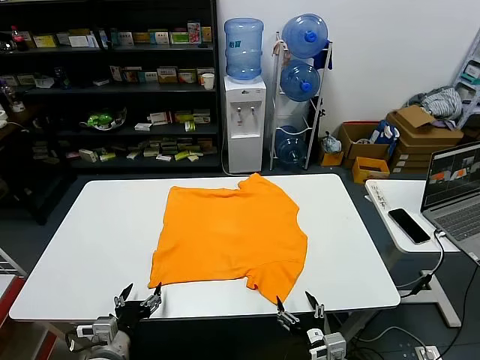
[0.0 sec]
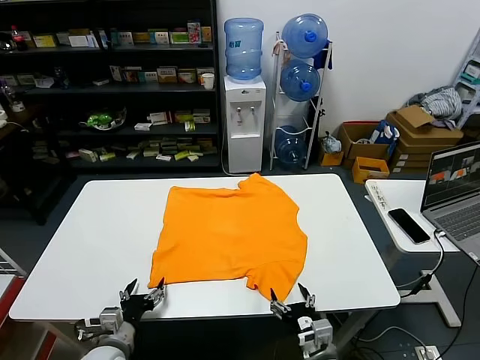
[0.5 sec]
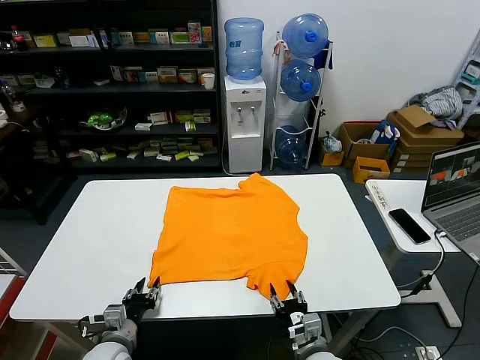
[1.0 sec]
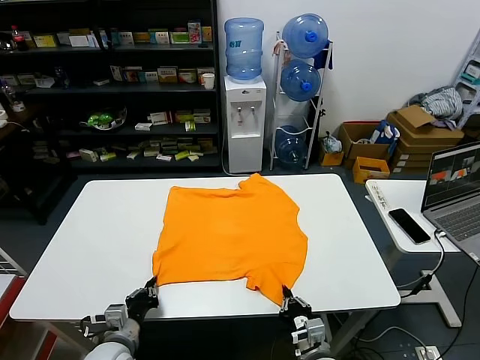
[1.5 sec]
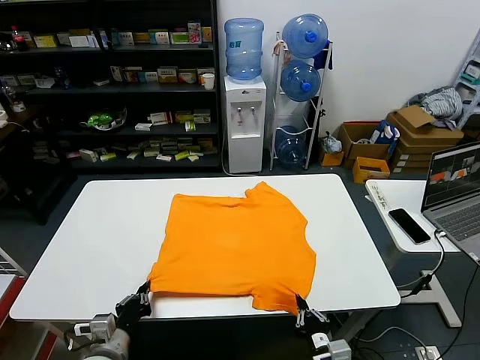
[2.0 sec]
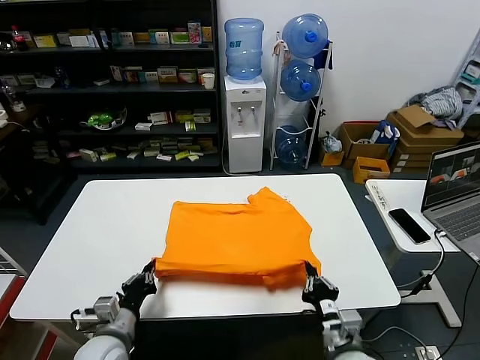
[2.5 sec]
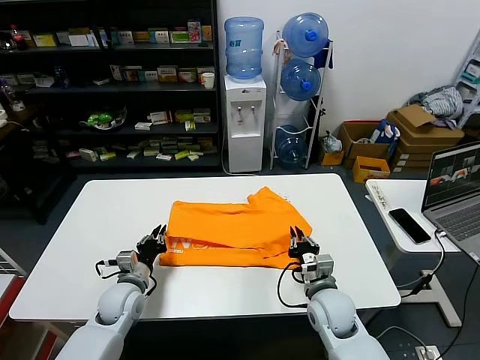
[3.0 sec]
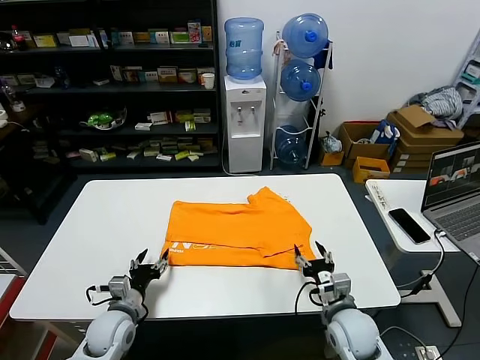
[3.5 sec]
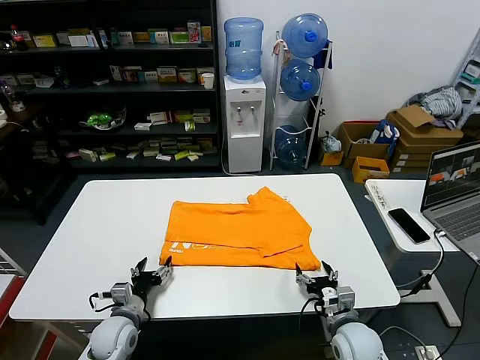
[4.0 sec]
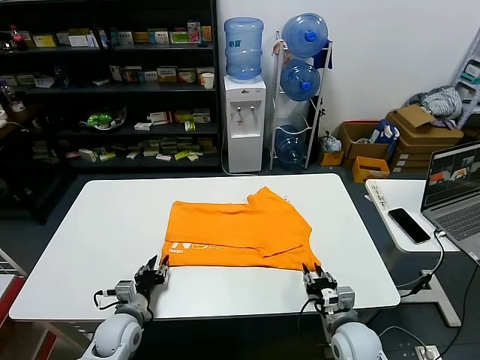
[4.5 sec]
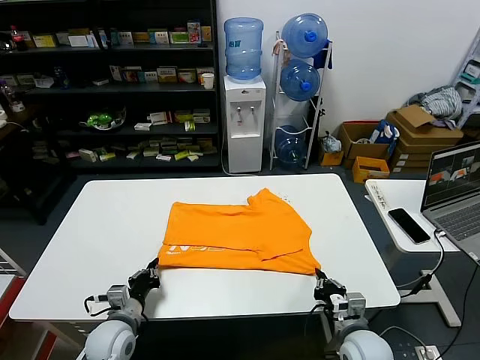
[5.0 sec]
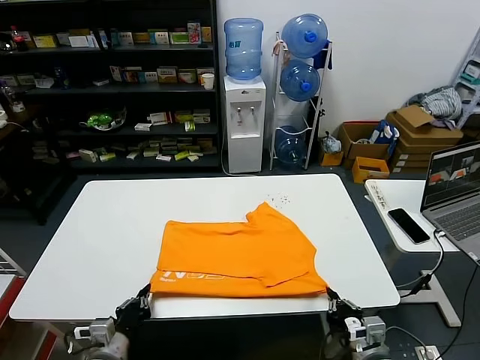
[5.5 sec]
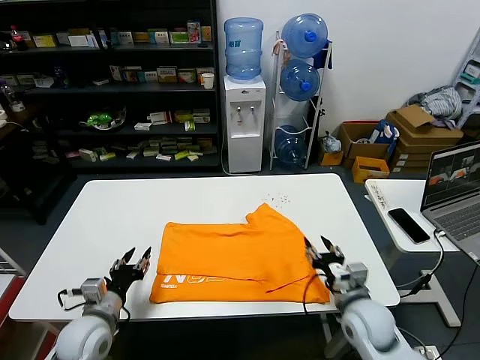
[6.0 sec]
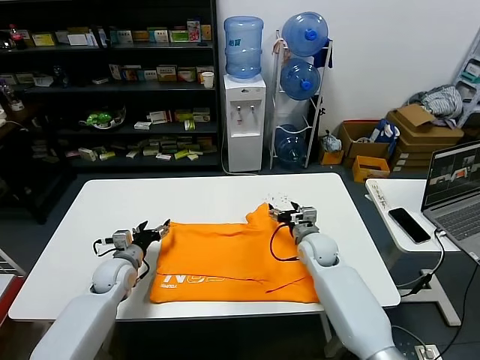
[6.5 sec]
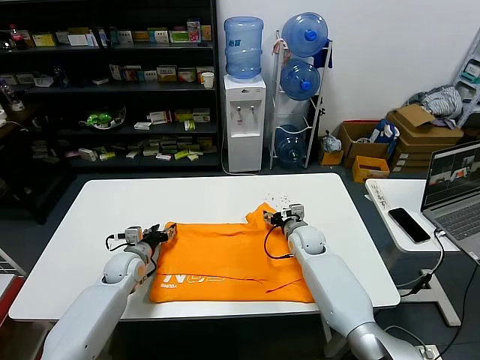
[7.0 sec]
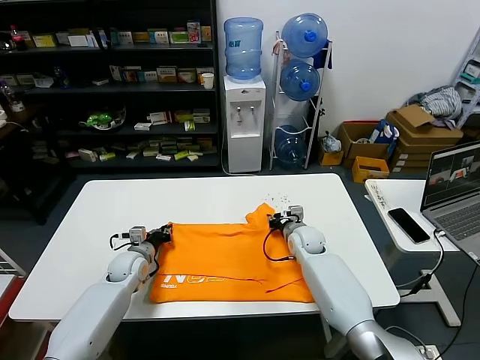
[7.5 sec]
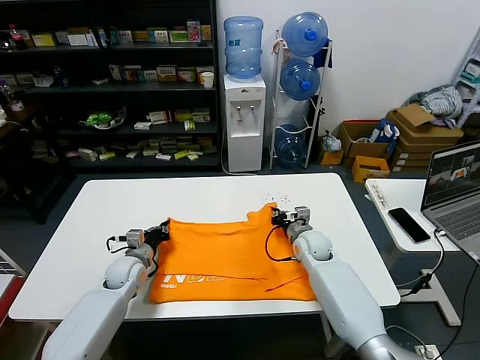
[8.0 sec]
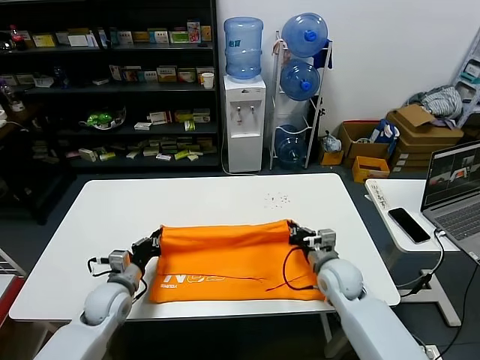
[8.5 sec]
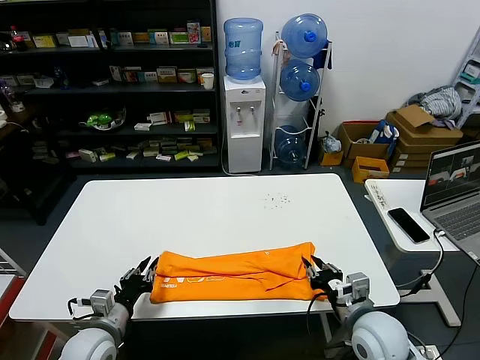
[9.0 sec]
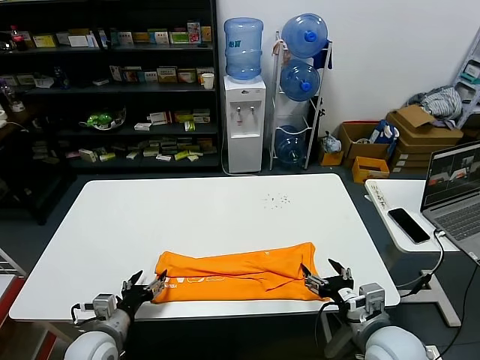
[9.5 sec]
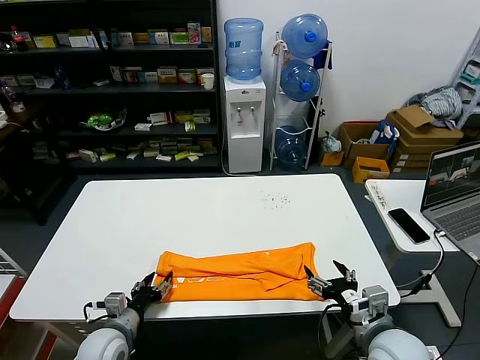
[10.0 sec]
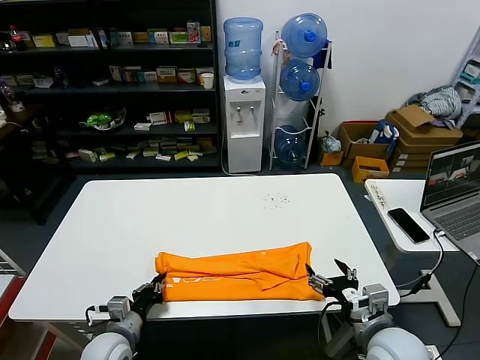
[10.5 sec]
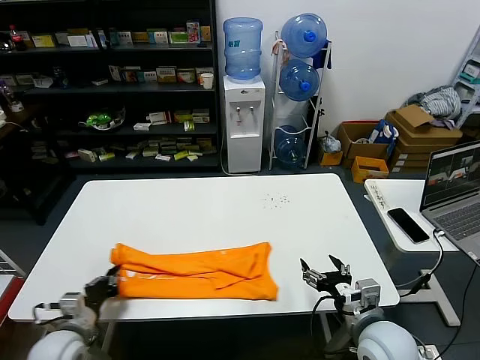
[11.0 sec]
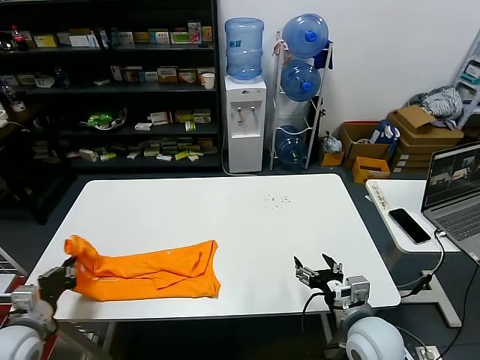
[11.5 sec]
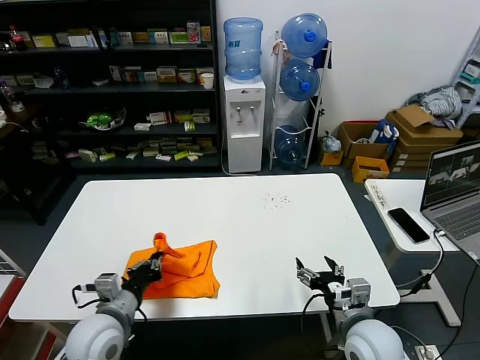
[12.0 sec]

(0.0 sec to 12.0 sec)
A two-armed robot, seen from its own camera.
Task of the whole recording: fold and organize the clothes.
Step, 0.0 sec - 1.5 sec: use both grippers simultaneously to clamp the lower edge of the clothing fabric.
Step, 2.0 sec - 3.0 sec: use both grippers to drag the lower edge of the fabric forward and fold it over the upper edge.
Step, 3.5 sec - 5.5 sec: Drag the clothes downward with both gripper.
Step, 6.0 sec - 7.5 sec: use both grippers simultaneously to clamp the upper edge of the clothing fabric.
Step, 8.0 sec - 9.0 sec: use both grippers to drag the upper edge of the fabric backward and fold it over the lower edge.
Step, 9.5 sec - 10.5 sec: use the left gripper to clamp the left edge of the fabric.
2.0 sec - 4.0 sec: The left gripper travels forward and downward by roughly 10 cm, and opens. Meanwhile the right gripper heads forward, covering about 15 cm, and opens.
4.0 sec - 6.0 sec: Both grippers move upward, approximately 10 cm. The right gripper reaches approximately 10 cm backward, then returns, and closes, then opens again; the left gripper closes up.
6.0 sec - 8.0 sec: The two grippers go roughly 20 cm forward. The right gripper closes up; the left gripper closes its fingers.
8.0 sec - 10.0 sec: The right gripper goes approximately 30 cm backward, and opens up; the left gripper is displaced backward by roughly 20 cm, and opens.
10.0 sec - 12.0 sec: The left gripper is displaced upward by about 10 cm, goes to the left and returns, roughly 15 cm each way, and closes up.

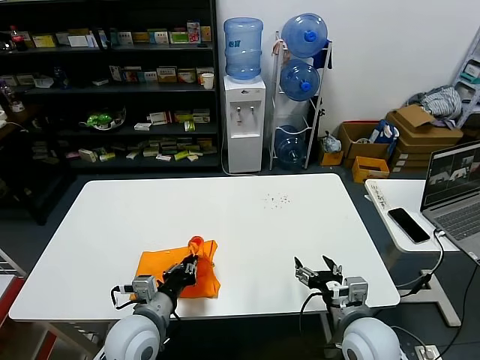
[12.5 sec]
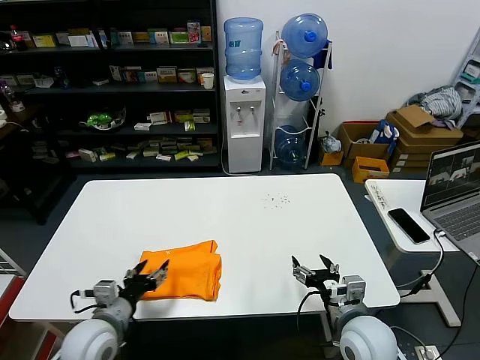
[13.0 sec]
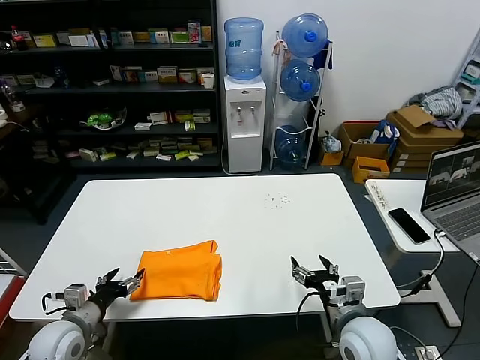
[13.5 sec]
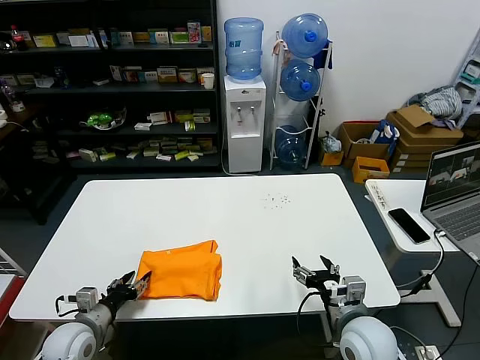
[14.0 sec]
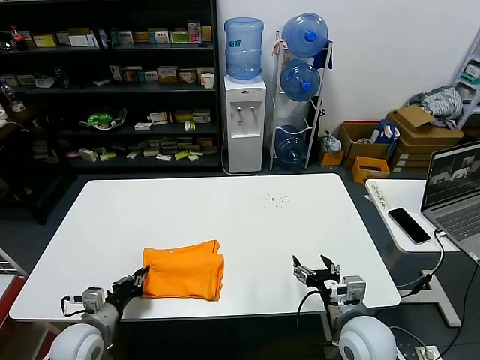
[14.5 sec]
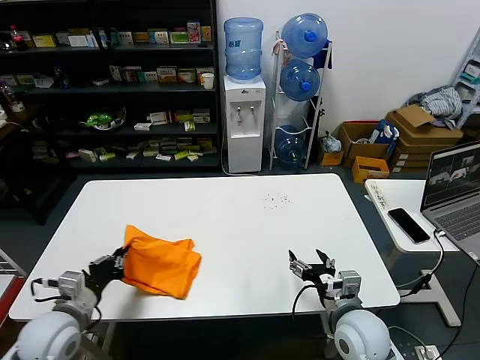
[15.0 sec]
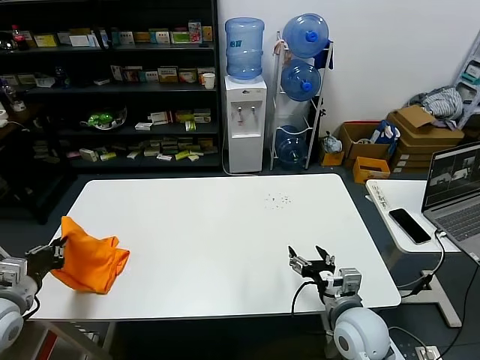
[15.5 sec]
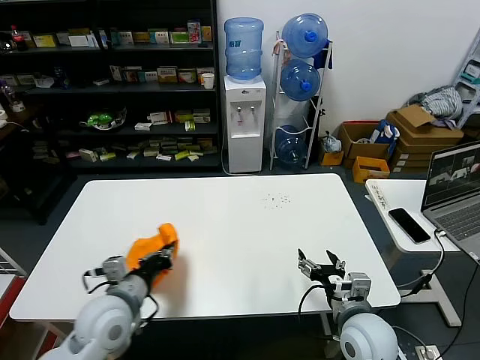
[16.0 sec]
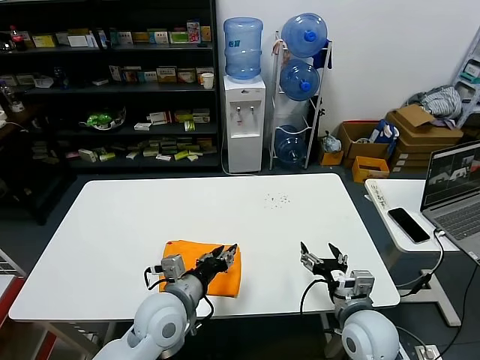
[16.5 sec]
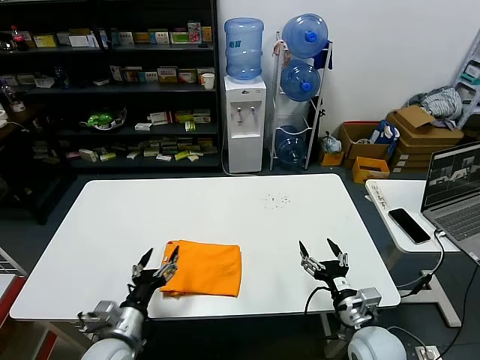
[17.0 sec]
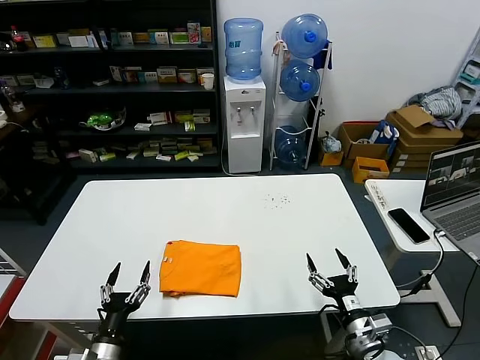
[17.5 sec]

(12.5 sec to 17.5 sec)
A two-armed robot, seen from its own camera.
Task of the whole recording: fold and organize the clothes.
Step, 13.0 sec - 16.5 sec: Flip the folded clothes over with left gripper.
12.5 sec - 15.0 sec: The left gripper shifts some 15 cm to the left, and opens, then closes once more.
15.0 sec - 17.5 sec: The left gripper swings left and right, roughly 30 cm each way, with 2 reversals, and opens its fingers, while the right gripper goes about 10 cm downward and backward.
